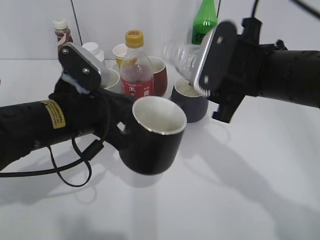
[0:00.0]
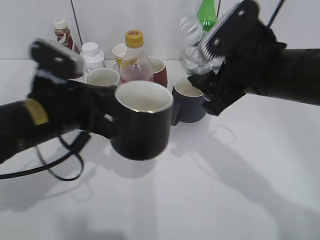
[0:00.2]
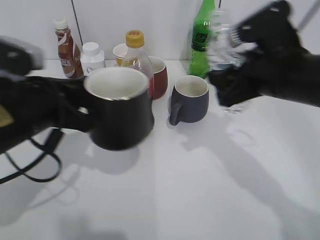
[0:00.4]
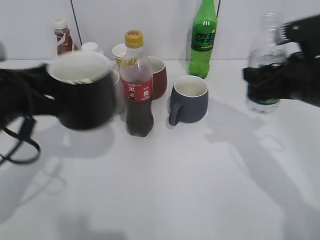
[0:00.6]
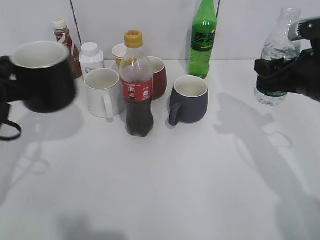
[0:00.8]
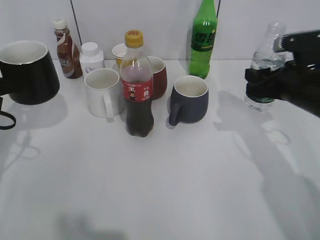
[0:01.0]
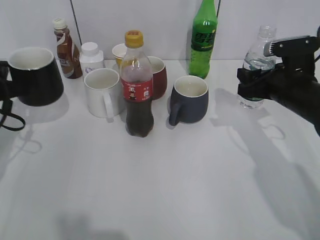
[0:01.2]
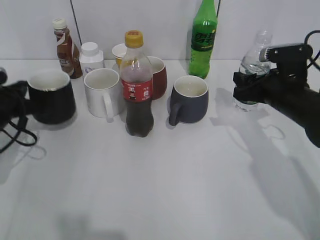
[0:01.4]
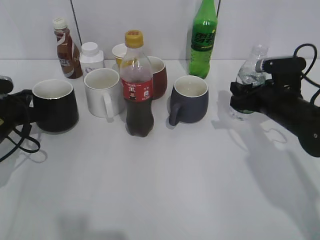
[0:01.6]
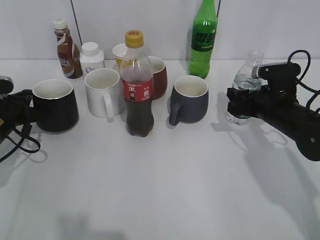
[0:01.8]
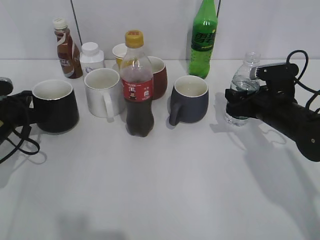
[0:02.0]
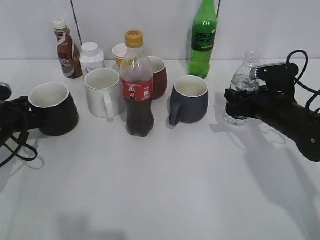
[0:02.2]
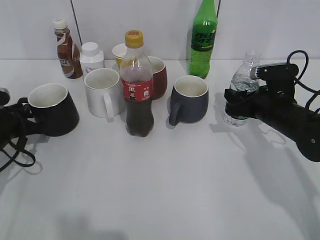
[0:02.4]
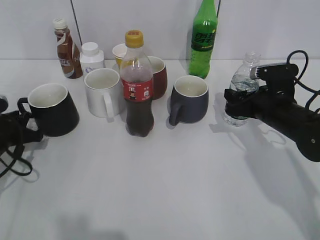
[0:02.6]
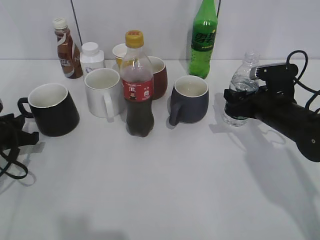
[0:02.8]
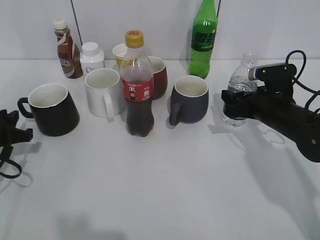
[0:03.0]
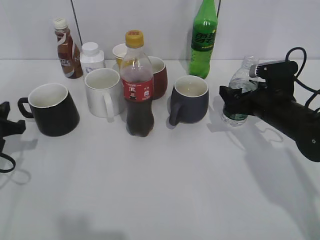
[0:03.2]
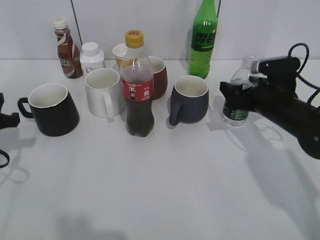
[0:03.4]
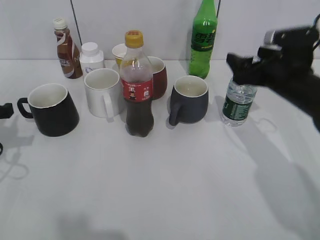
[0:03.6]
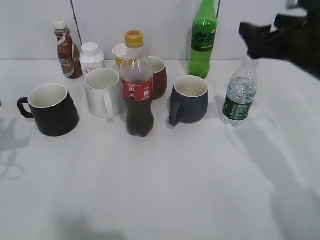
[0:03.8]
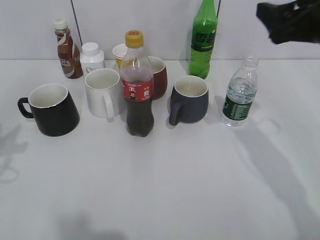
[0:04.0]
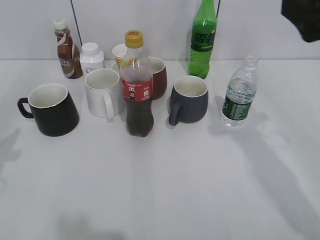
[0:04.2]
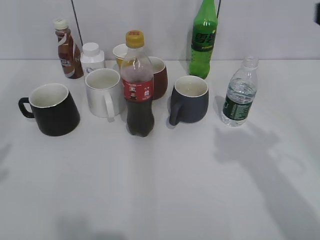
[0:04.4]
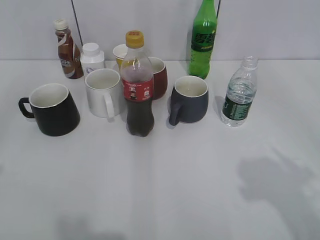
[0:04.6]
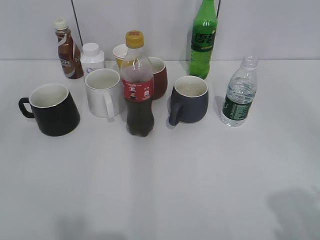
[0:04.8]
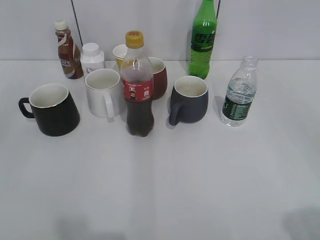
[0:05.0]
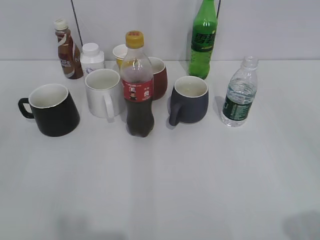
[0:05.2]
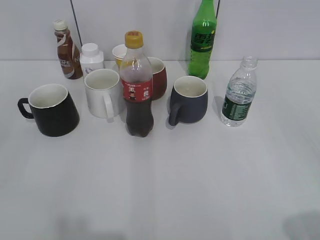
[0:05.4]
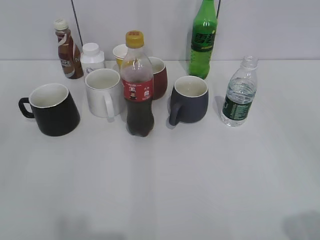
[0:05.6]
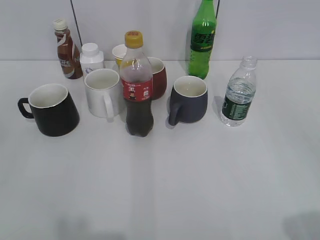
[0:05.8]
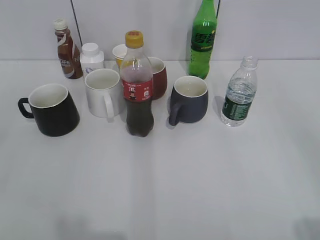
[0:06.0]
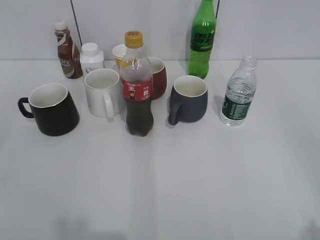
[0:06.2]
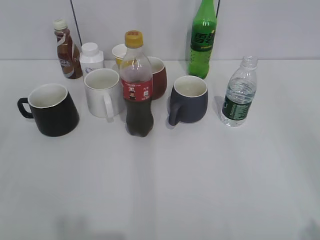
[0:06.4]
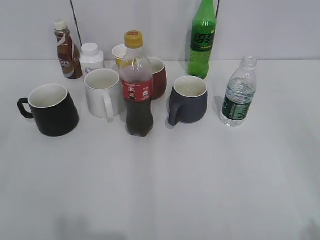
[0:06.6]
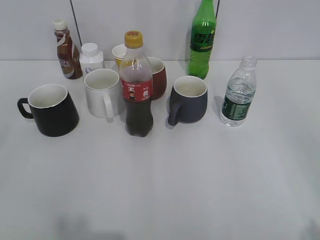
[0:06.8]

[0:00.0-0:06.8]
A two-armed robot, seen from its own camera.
Step, 0.0 to 3.4 s: Place the water bottle on the table with right gripper.
0.0 to 1.4 s: The right gripper shifts approximately 15 cm downward, to the right and forward. Meanwhile the left gripper travels to the left, forward and downward by roughly 20 cm.
1.4 to 2.8 s: The left gripper ends up about 5 cm from where it was, and opens up.
2.8 to 4.0 s: The left gripper is displaced upward and backward by approximately 20 cm, and opens. The right gripper moves upward, about 20 cm, and opens.
4.0 to 5.4 s: The right gripper moves backward, about 25 cm.

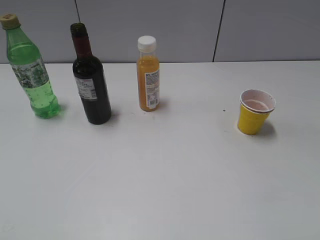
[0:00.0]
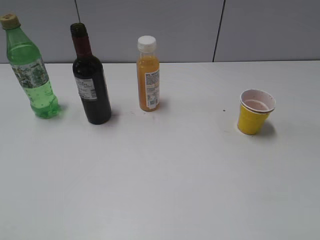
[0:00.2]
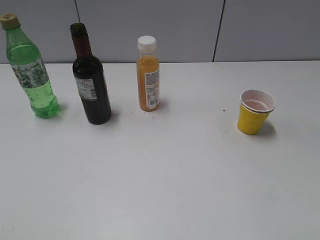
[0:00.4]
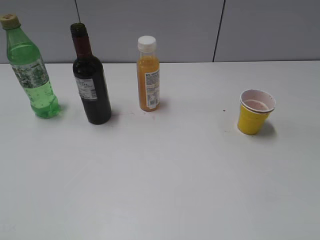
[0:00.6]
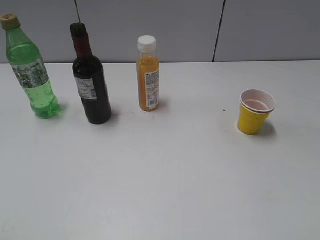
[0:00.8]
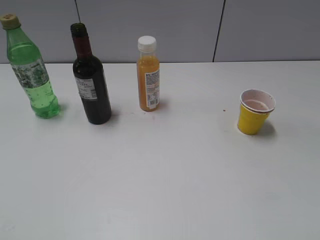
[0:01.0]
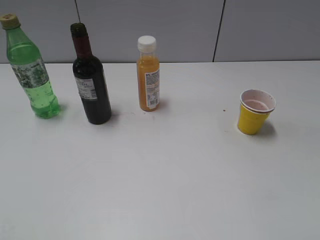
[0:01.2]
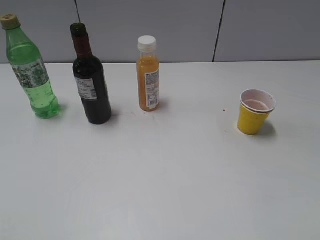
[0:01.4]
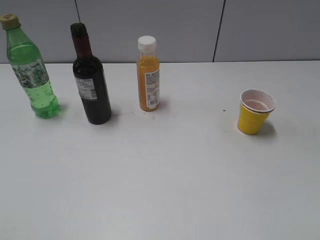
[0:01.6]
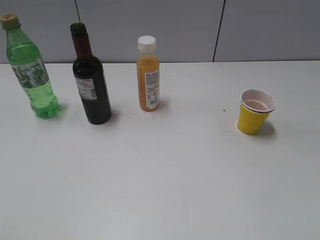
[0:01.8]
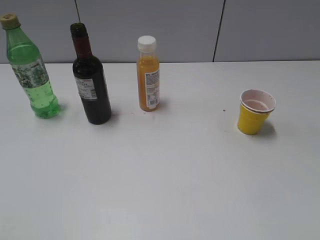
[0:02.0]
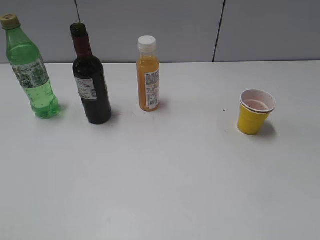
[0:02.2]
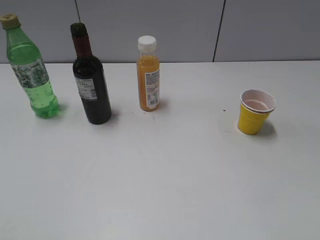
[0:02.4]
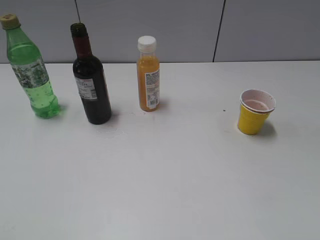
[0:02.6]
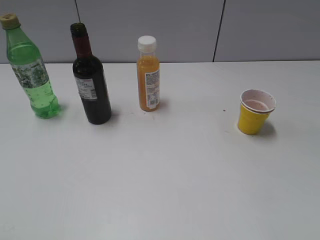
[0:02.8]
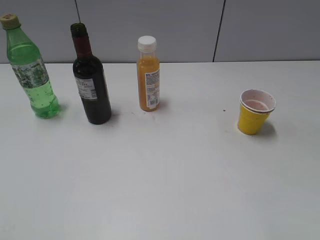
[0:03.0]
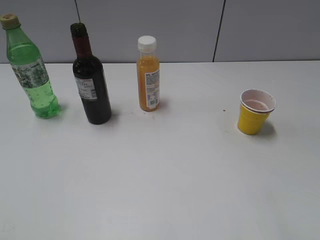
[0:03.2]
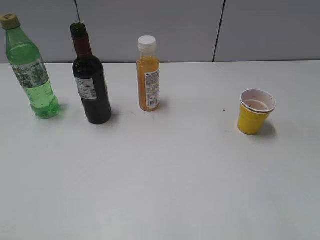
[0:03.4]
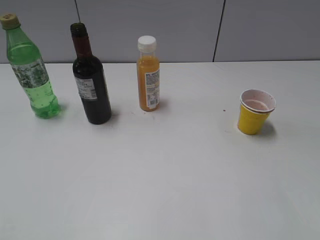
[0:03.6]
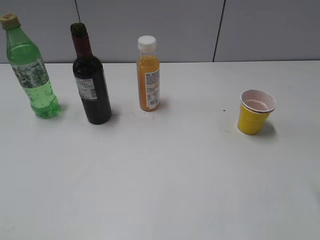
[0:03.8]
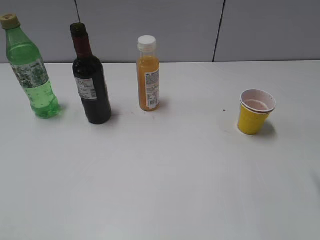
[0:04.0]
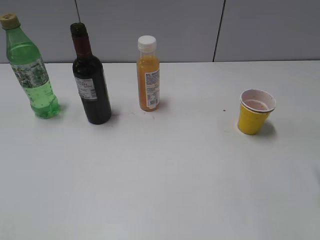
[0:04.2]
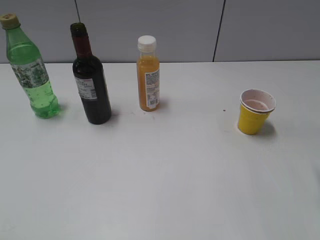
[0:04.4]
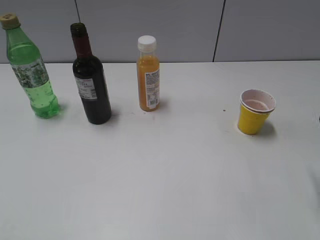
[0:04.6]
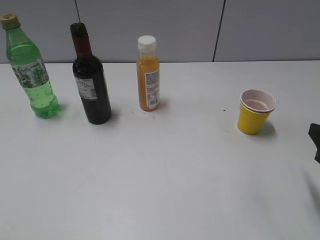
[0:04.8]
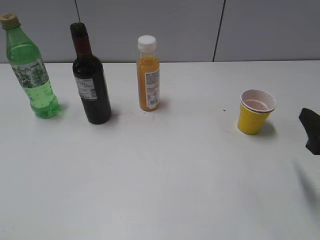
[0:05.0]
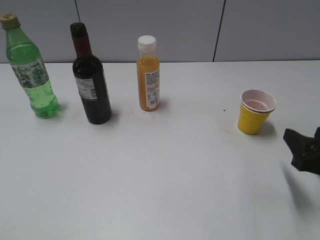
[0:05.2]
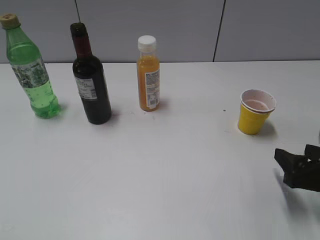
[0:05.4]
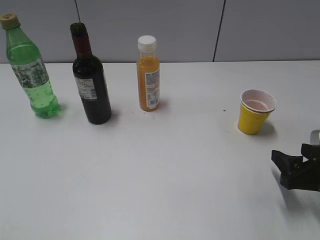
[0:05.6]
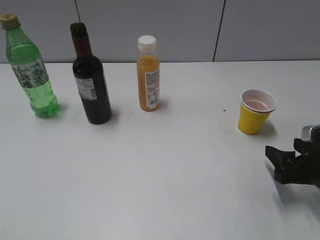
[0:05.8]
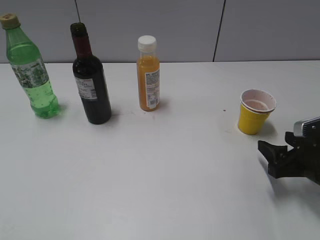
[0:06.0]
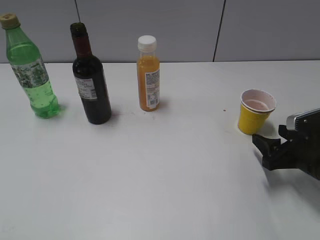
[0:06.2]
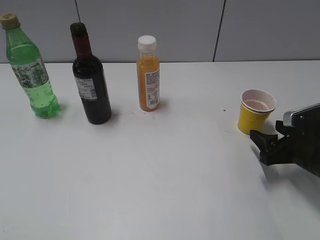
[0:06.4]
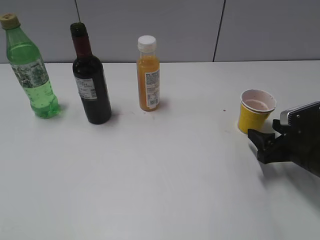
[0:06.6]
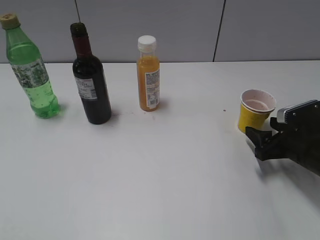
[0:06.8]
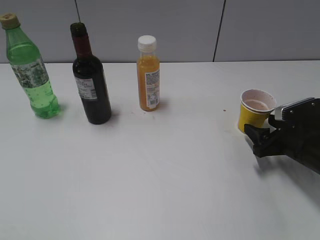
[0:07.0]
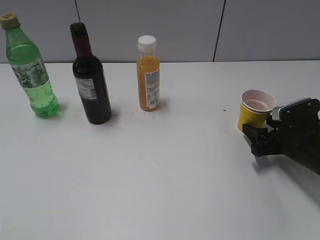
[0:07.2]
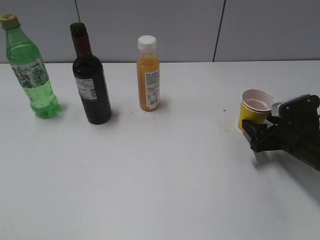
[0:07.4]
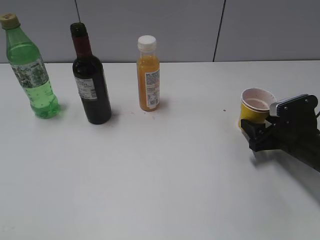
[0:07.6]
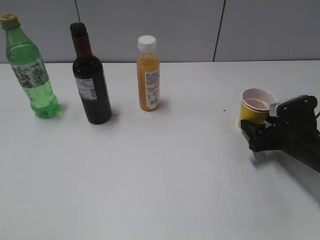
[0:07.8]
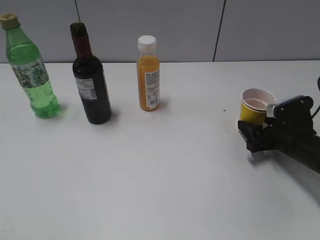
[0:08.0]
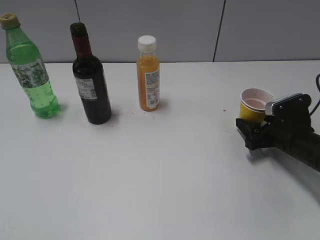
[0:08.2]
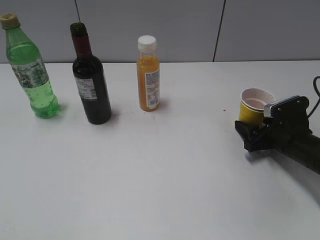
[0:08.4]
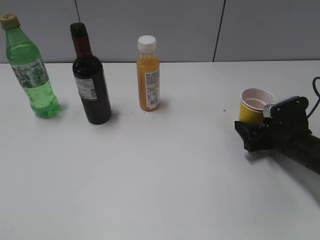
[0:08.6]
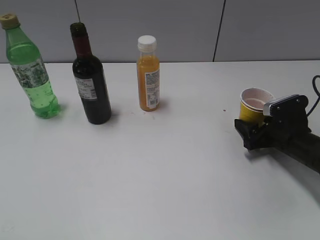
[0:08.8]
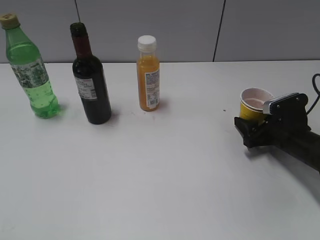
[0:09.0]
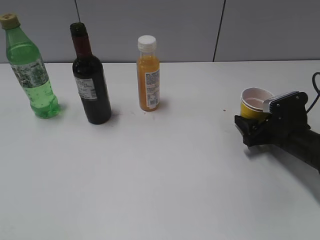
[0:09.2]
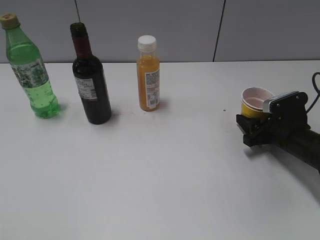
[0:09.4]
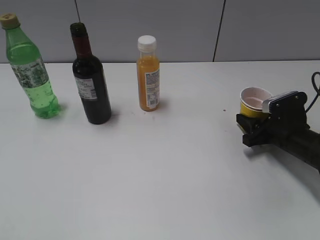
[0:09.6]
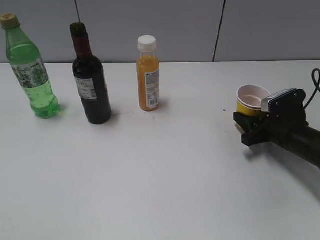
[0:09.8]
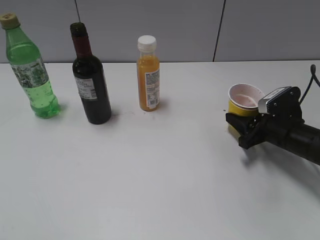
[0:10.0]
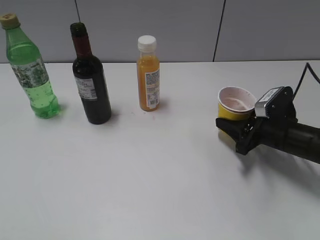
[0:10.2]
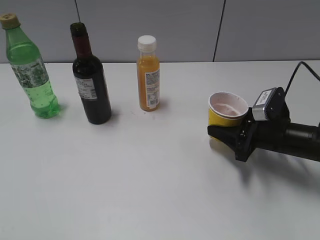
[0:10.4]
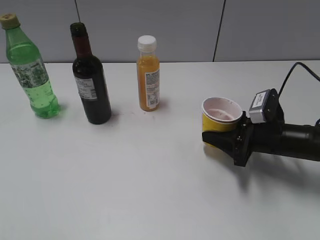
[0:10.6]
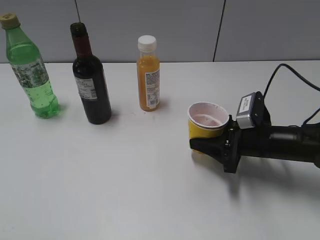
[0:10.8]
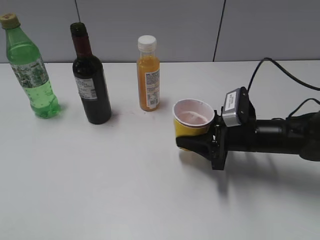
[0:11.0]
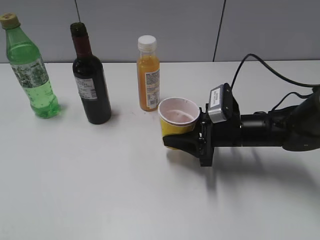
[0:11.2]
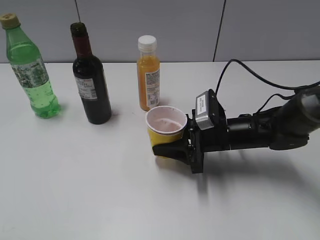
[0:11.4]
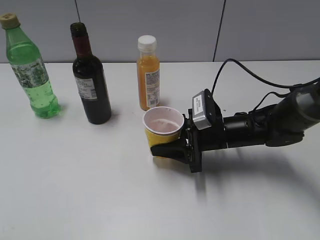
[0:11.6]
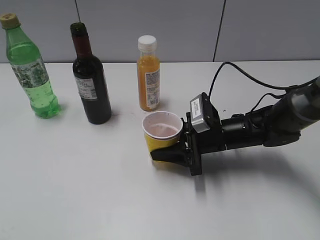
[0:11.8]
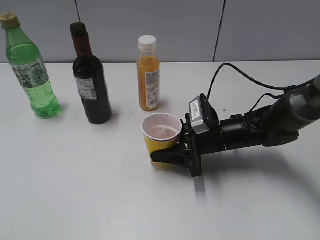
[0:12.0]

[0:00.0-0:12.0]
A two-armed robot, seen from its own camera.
Step, 2.4 to 9.2 s: Grasp the yellow paper cup with right gripper.
4.4 to 6.0 s: The right gripper goes approximately 10 cm downward.
6.0 to 7.6 s: The right gripper goes roughly 10 cm forward.
7.6 to 9.0 s: The grippers make only small movements.
9.0 to 10.4 s: The right gripper closes up.
10.4 to 12.0 s: The right gripper moves to the left, some 10 cm.

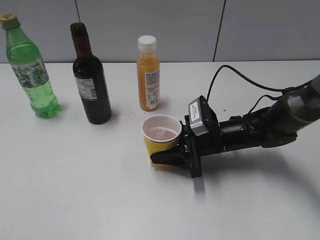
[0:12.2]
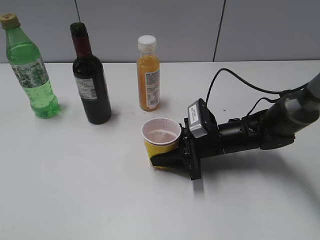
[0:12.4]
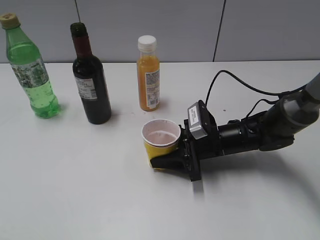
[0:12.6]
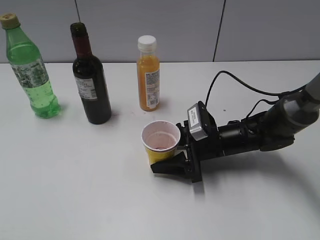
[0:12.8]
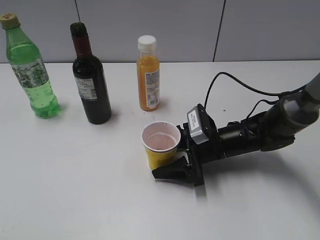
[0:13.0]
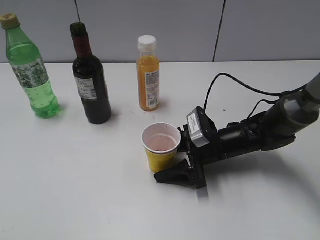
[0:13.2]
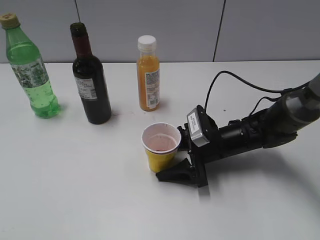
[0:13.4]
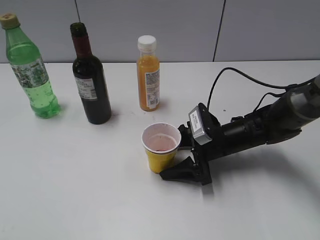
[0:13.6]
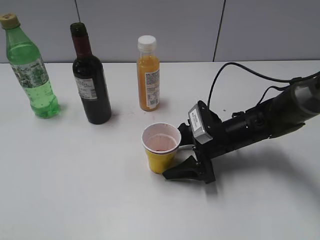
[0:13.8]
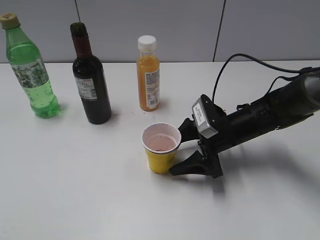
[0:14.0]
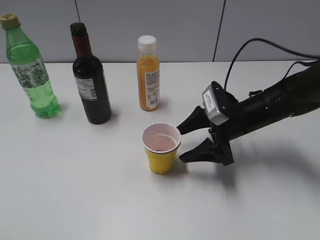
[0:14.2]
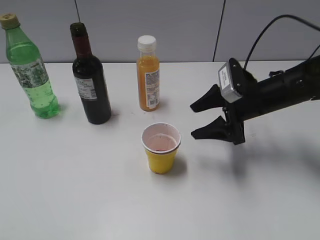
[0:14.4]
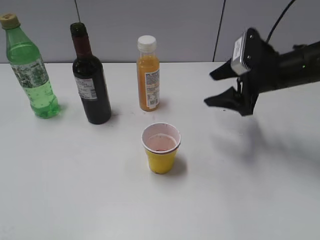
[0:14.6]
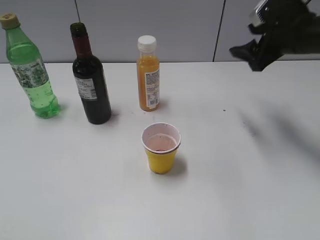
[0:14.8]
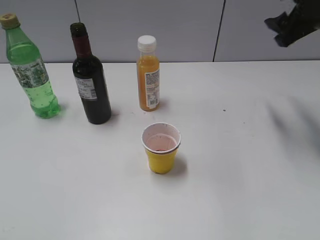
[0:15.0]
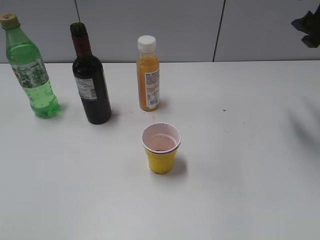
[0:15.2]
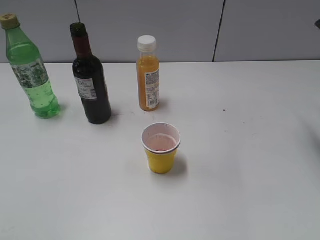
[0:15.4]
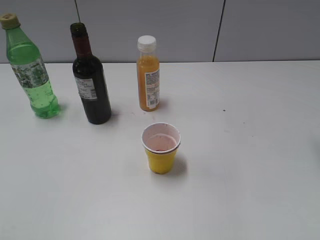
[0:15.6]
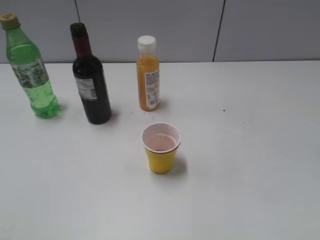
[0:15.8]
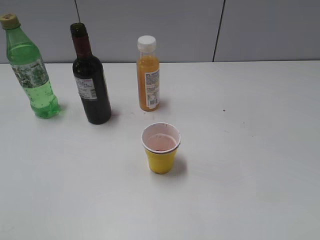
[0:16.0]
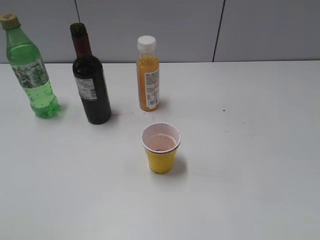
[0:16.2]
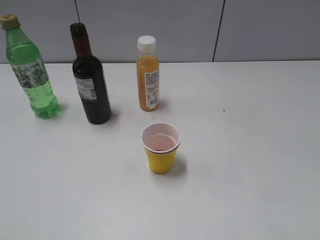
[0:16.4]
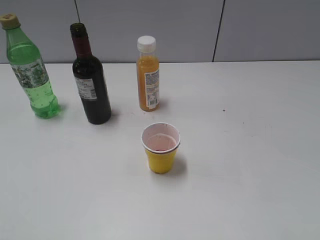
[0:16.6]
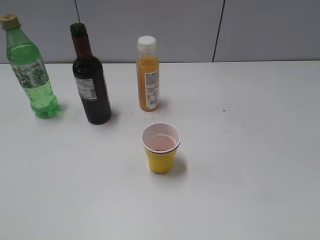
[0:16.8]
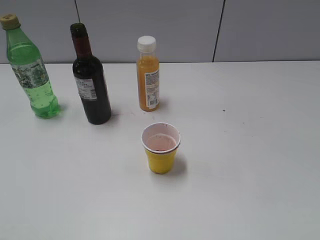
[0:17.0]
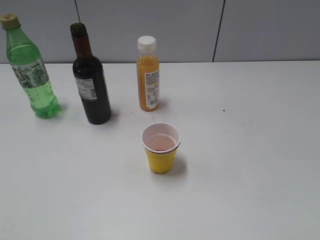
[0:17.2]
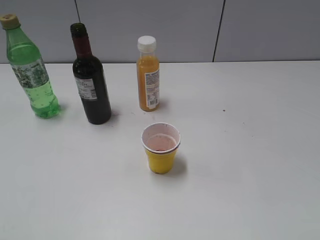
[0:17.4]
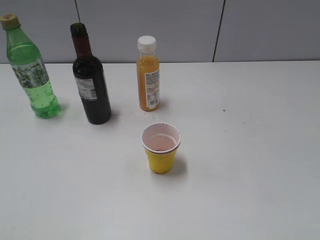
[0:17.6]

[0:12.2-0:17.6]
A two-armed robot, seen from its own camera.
12.2 to 13.6 s: The right gripper opens up.
13.6 to 15.0 s: The right gripper moves upward and to the right, roughly 25 cm.
15.0 to 16.2 s: The right gripper goes some 30 cm backward and upward.
